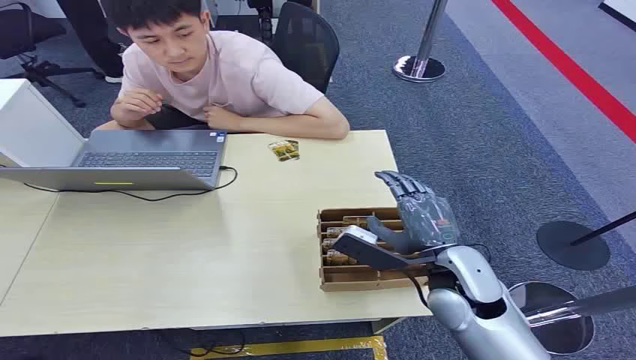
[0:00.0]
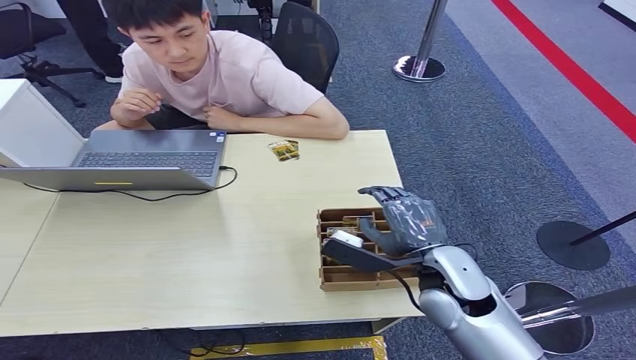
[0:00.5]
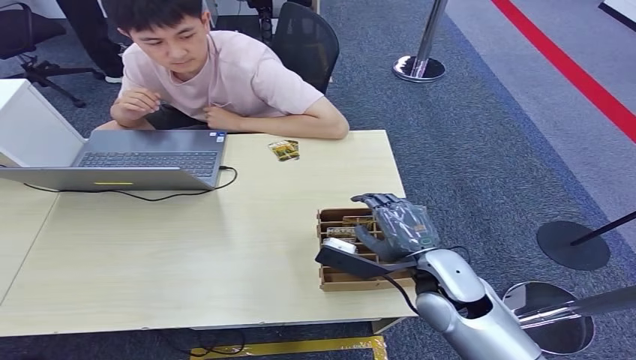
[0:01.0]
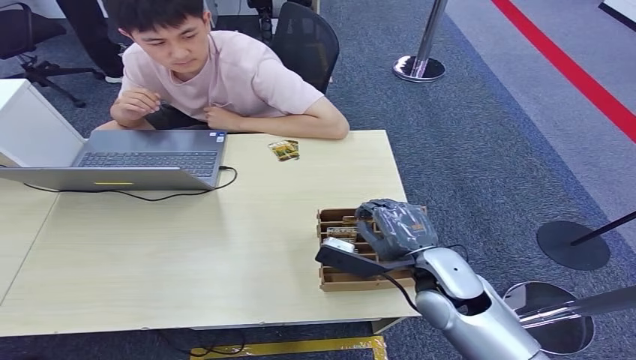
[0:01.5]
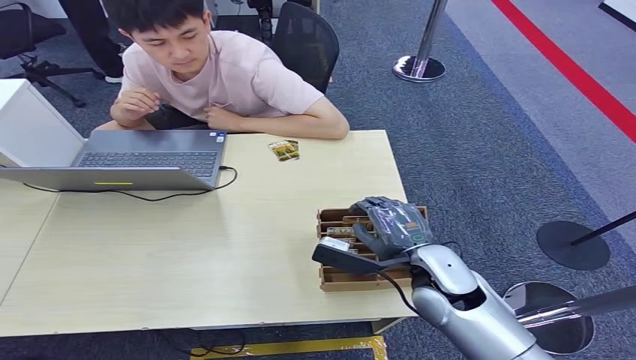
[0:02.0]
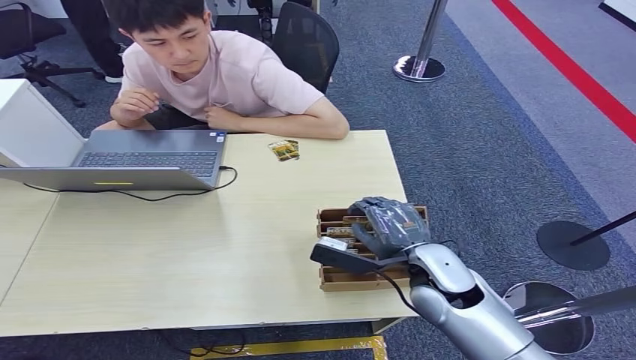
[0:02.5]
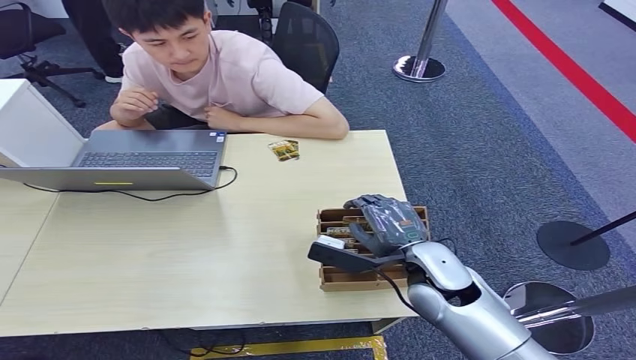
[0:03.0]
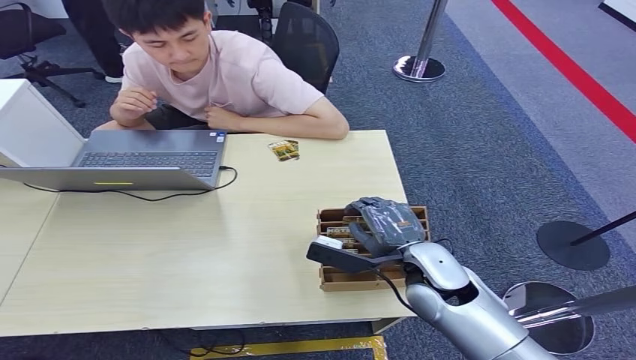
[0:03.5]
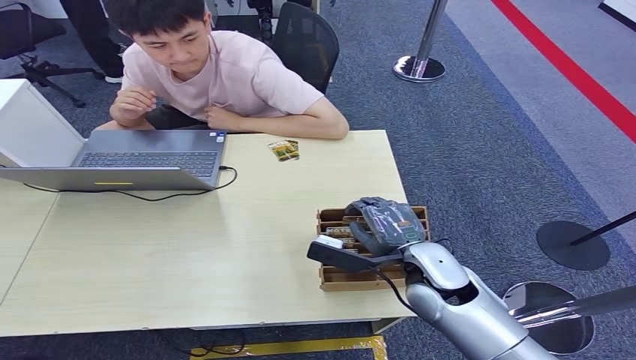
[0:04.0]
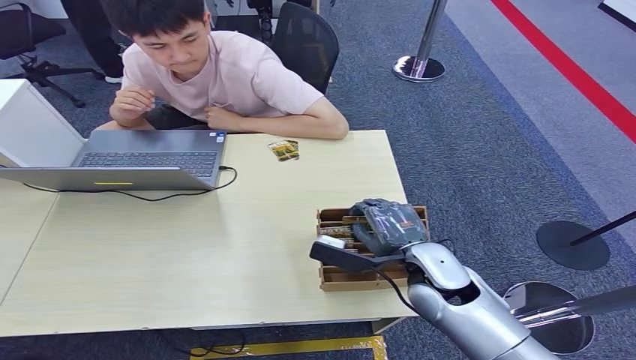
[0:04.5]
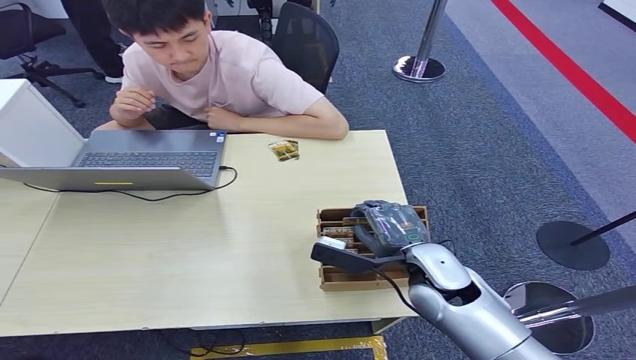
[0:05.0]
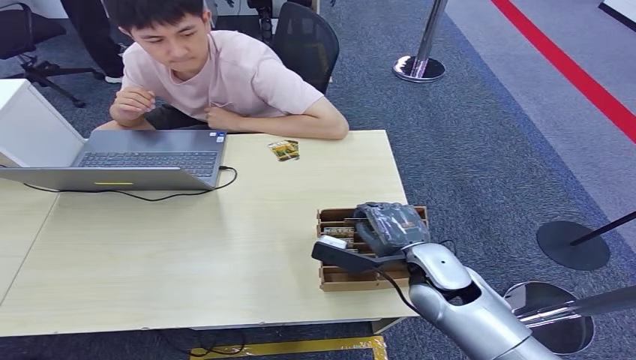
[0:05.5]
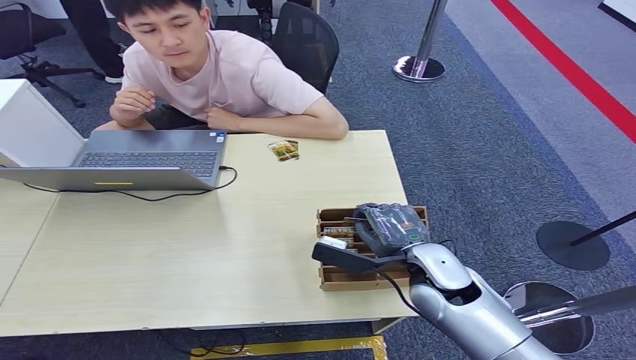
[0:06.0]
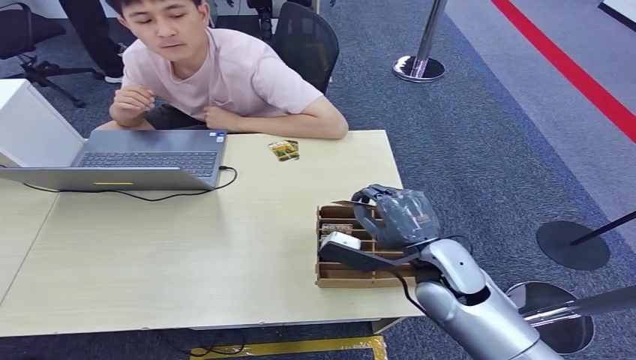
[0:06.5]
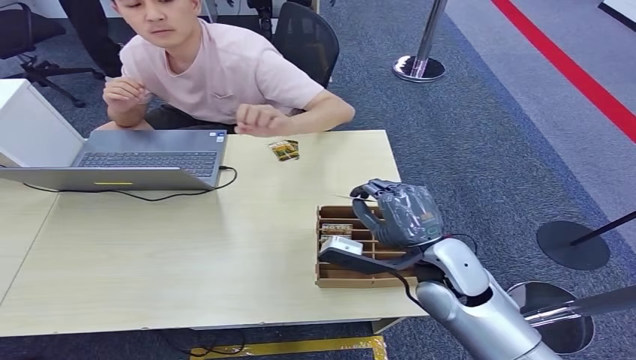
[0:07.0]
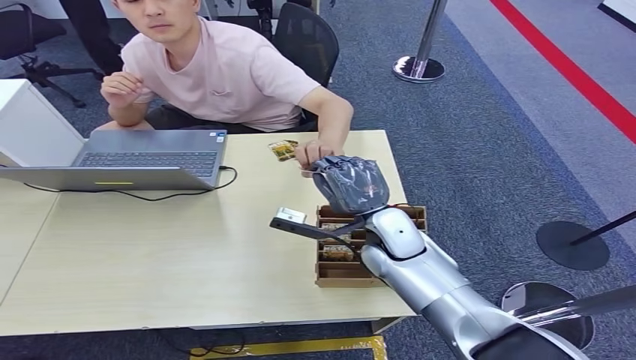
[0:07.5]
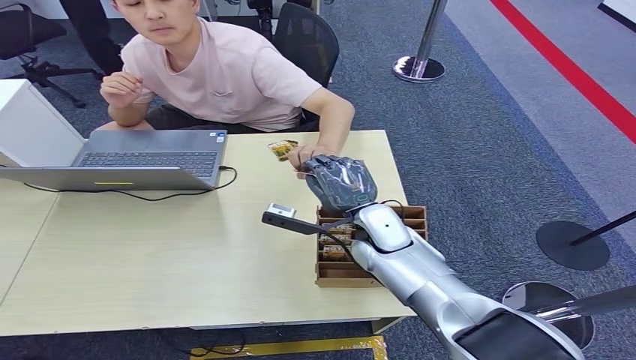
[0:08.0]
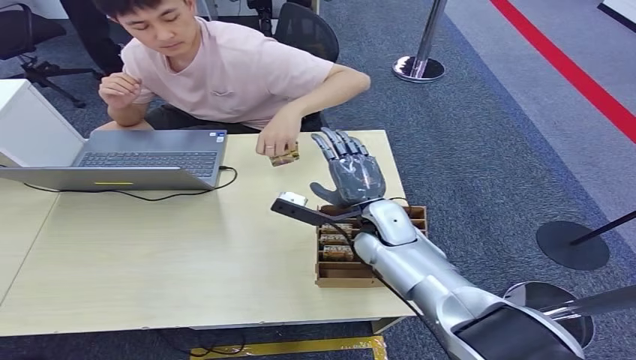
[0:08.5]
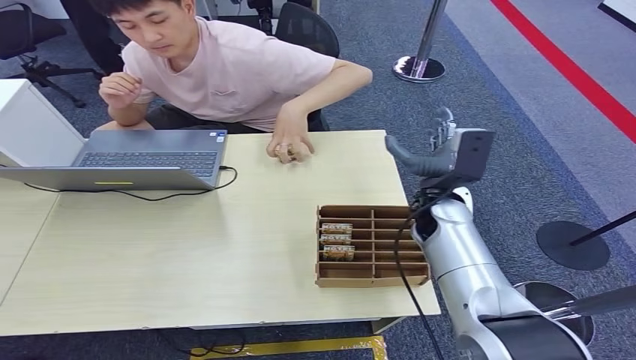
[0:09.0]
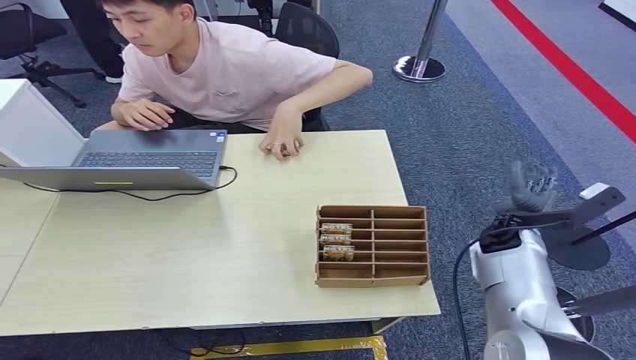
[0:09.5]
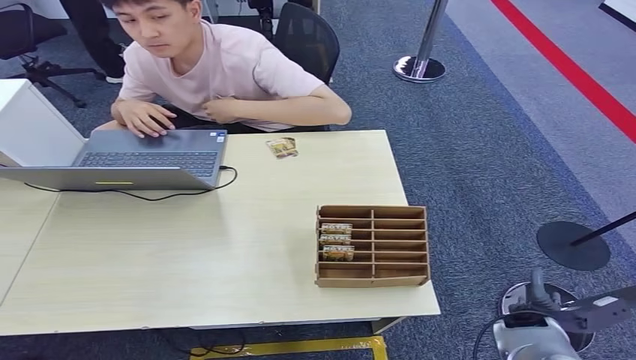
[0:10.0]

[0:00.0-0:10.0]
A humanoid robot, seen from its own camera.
Step, 0:00.0 to 0:06.0: Pick up the key card from the card box.
Step, 0:06.5 to 0:10.0: Hand the key card to the target.
0:02.0 to 0:06.0: The two hands keep their place.
0:06.0 to 0:08.0: The right hand goes some 10 cm forward and to the left.
0:08.0 to 0:10.0: The right hand heads to the right, downward and backward, covering some 35 cm.

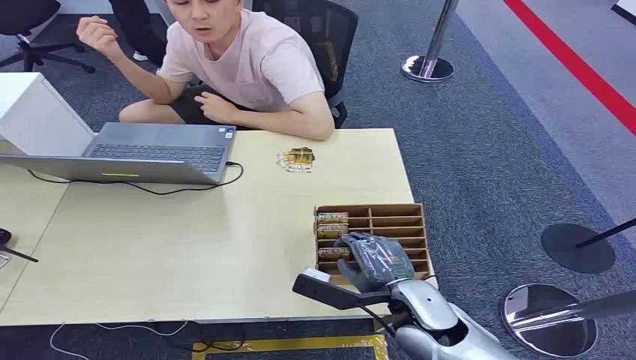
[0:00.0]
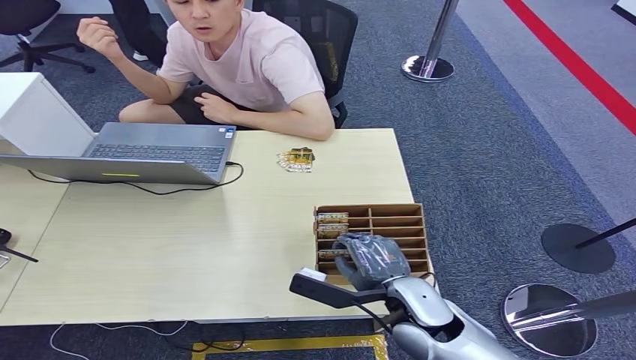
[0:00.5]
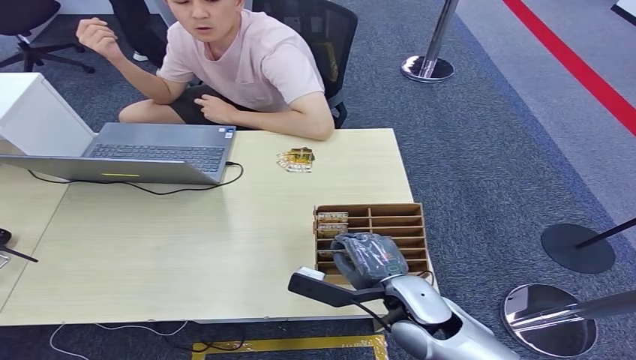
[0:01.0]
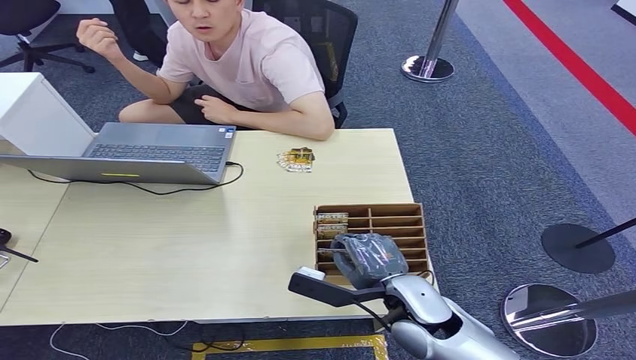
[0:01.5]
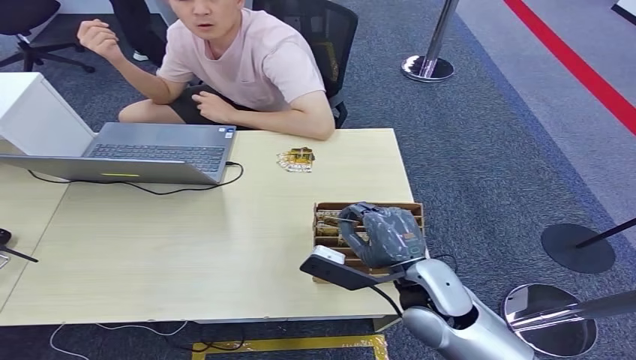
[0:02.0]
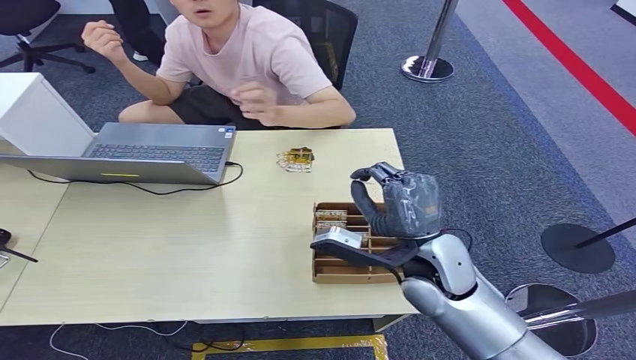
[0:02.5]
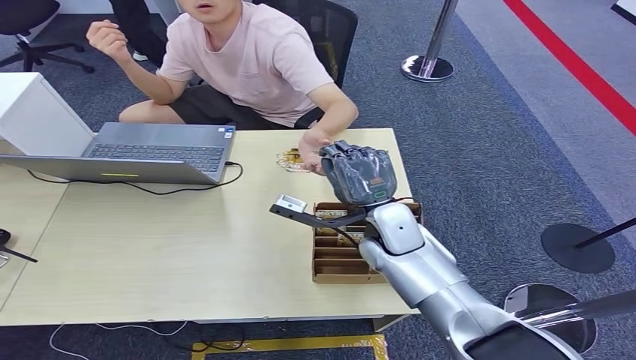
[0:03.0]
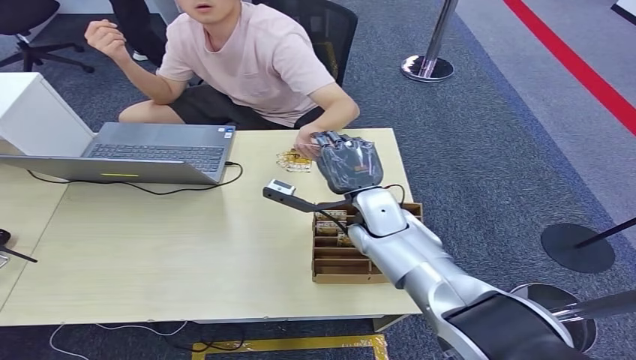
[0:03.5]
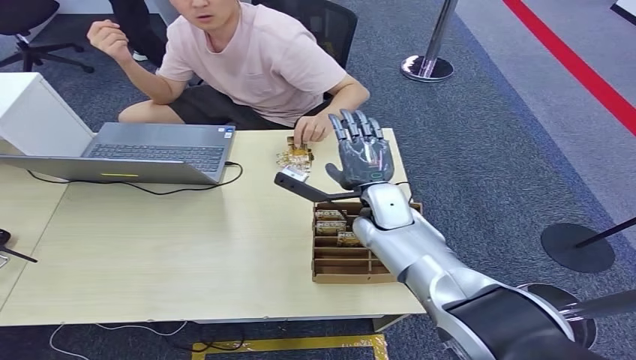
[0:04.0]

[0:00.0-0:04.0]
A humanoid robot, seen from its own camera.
Step, 0:00.0 to 0:02.0: Pick up the key card from the card box.
Step, 0:02.5 to 0:04.0: Hand the key card to the target.
0:02.0 to 0:04.0: The right hand moves forward, some 15 cm.
